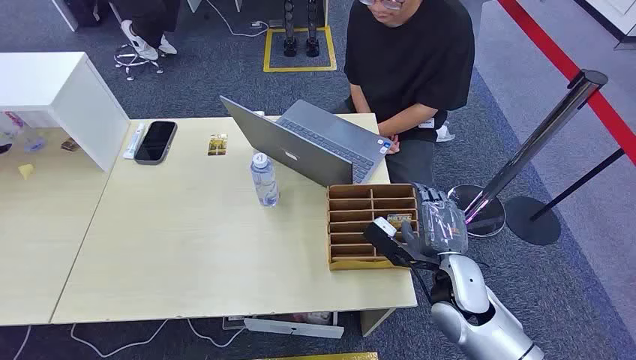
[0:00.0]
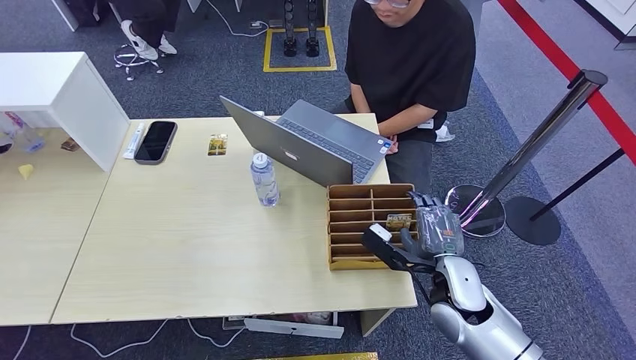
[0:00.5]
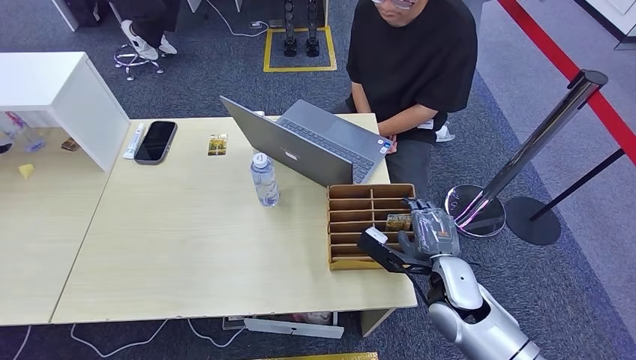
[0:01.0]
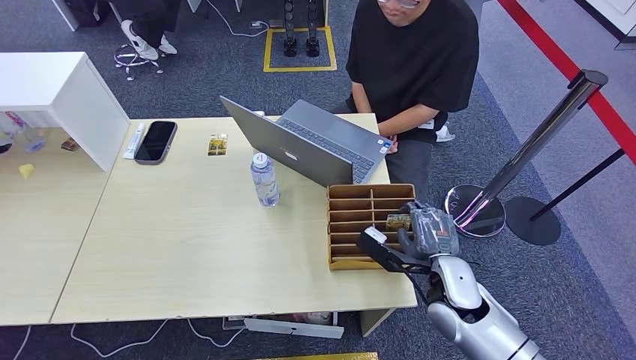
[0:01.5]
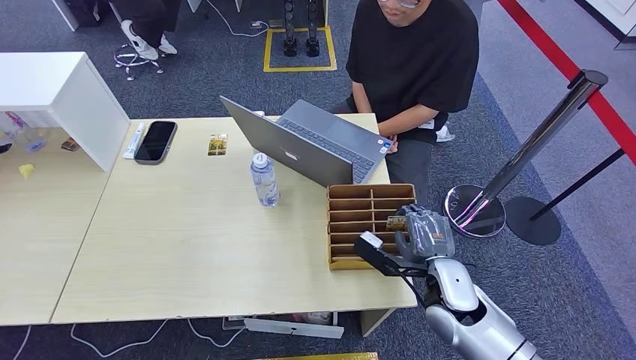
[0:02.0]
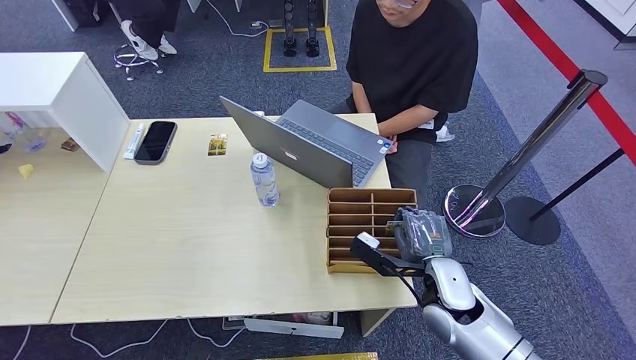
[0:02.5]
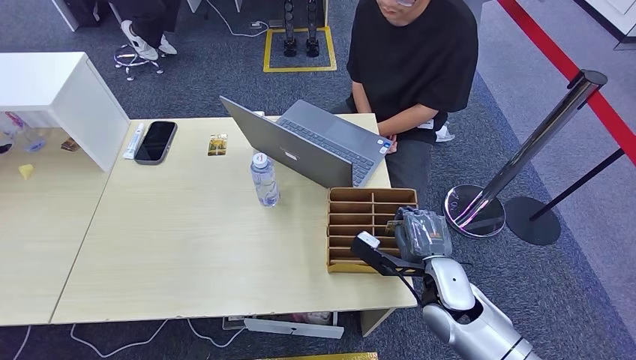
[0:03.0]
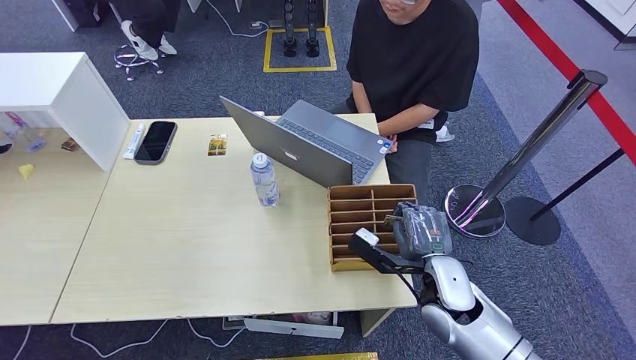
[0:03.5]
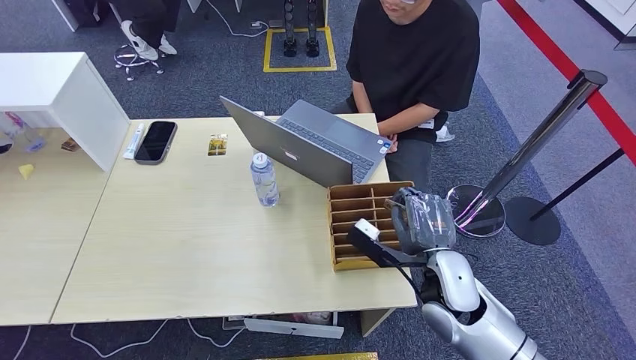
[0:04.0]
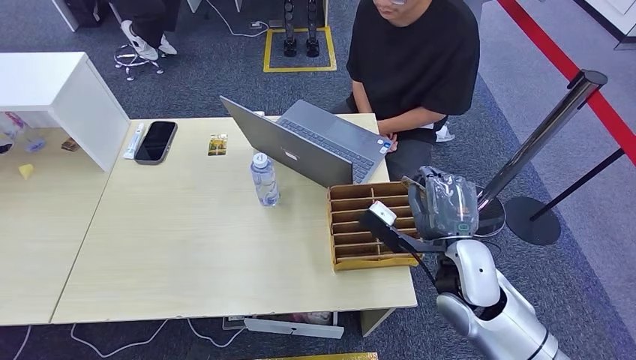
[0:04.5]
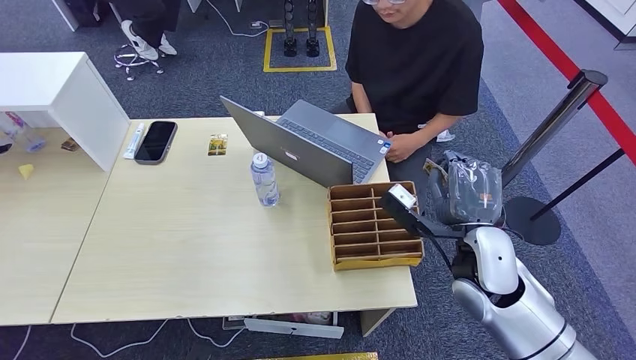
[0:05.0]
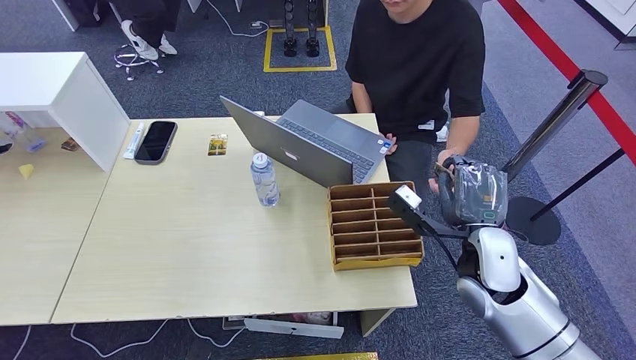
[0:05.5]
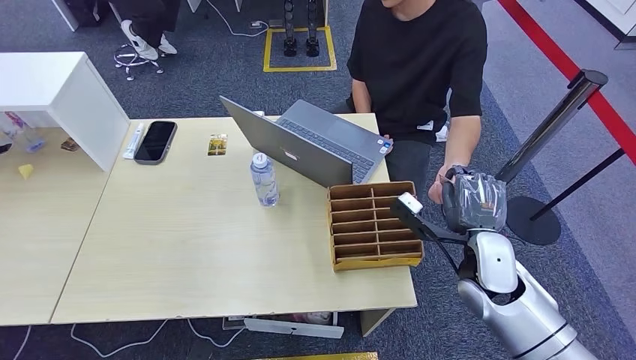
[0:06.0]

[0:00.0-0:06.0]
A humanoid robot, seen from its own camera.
Step, 0:00.0 to 0:05.0: Pick up the key card from the card box.
Step, 0:05.5 to 0:06.0: Hand the key card to the target.
0:02.0 to 0:04.0: There are only small adjustments of the hands.
0:04.0 to 0:06.0: The right hand goes approximately 5 cm to the right.

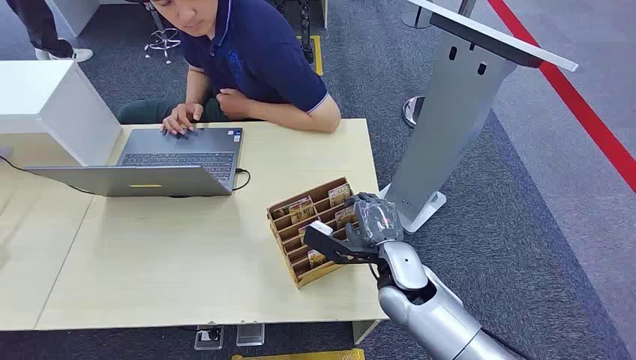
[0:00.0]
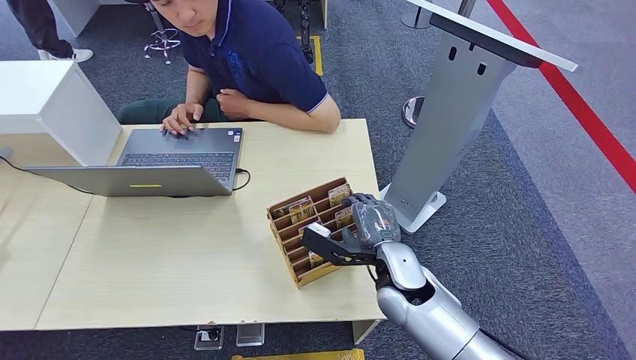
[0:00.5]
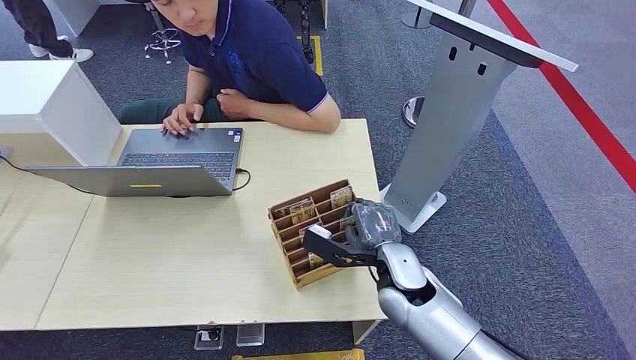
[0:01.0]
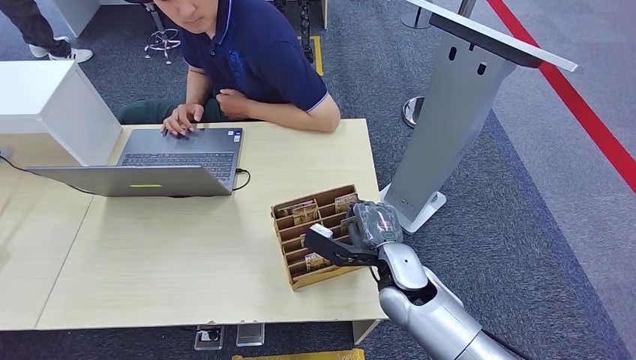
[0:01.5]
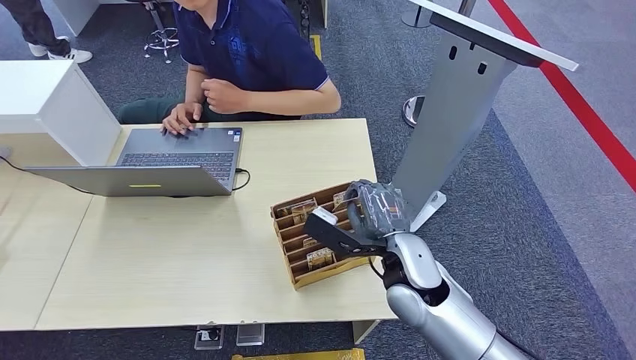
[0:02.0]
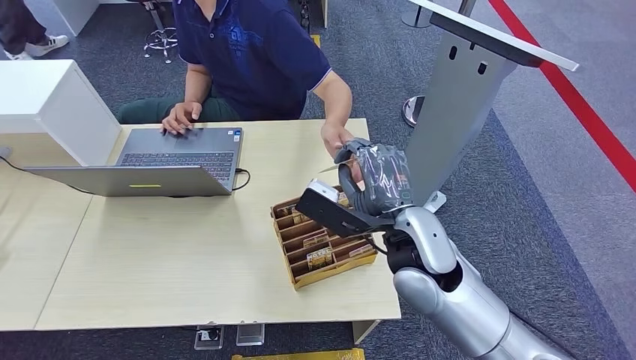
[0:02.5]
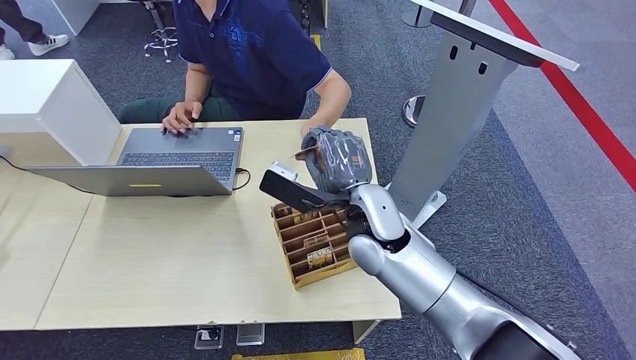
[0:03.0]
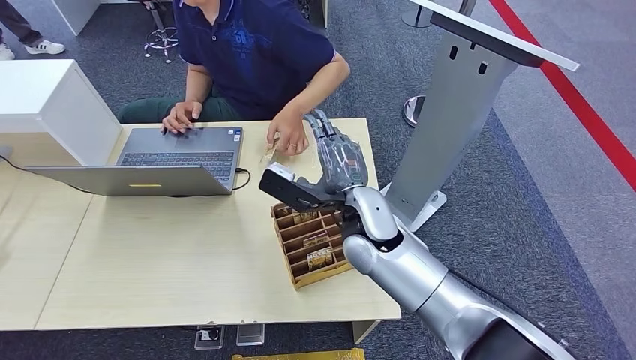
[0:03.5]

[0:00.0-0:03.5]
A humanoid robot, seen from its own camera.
Step, 0:00.0 to 0:02.0: Pick up the key card from the card box.
Step, 0:02.5 to 0:03.5: Hand the key card to the target.
0:02.0 to 0:03.5: The right hand heads to the left and forward, covering roughly 10 cm.
